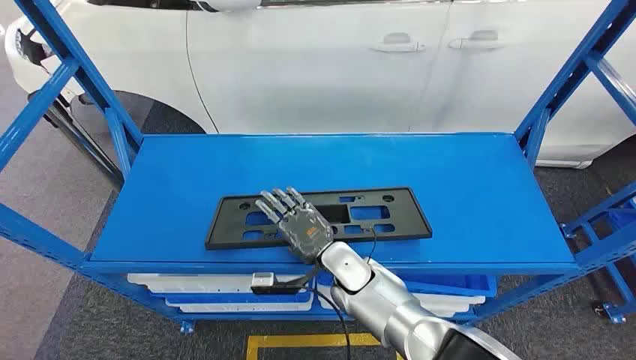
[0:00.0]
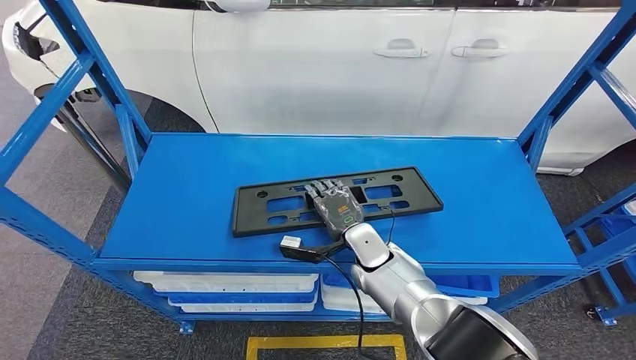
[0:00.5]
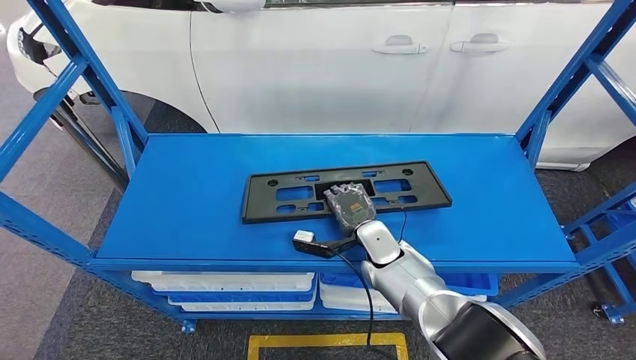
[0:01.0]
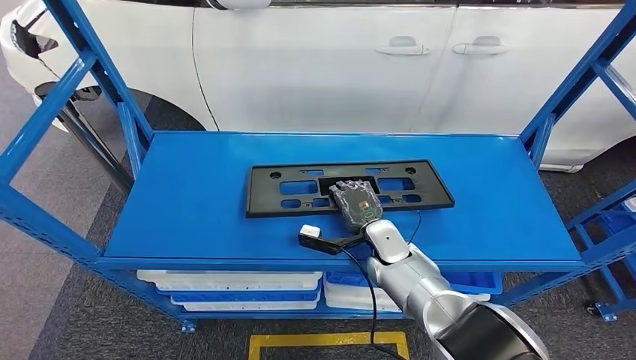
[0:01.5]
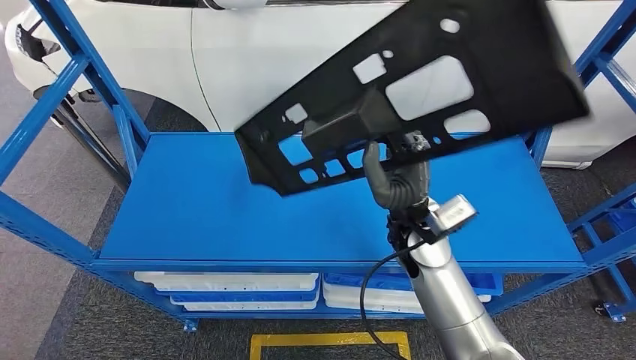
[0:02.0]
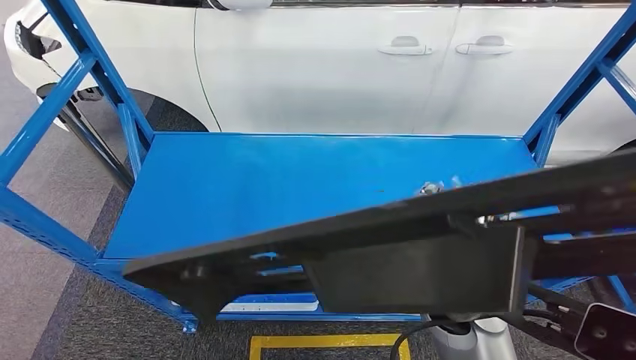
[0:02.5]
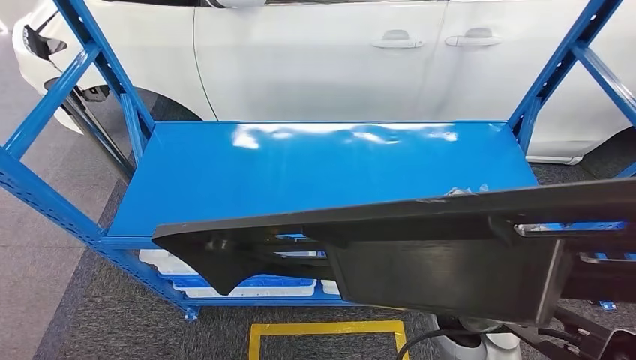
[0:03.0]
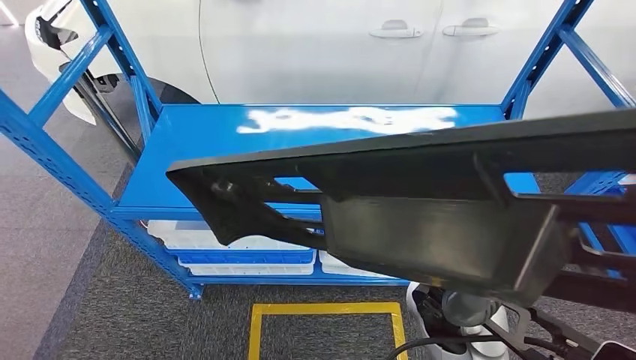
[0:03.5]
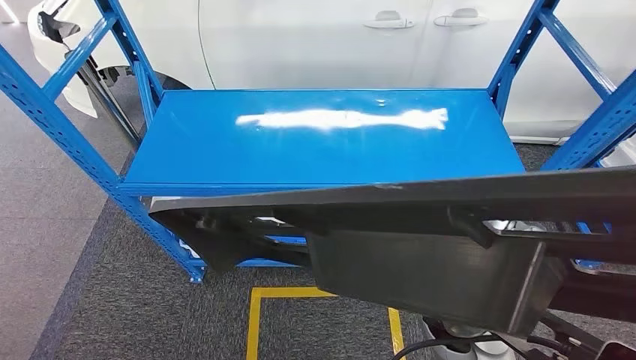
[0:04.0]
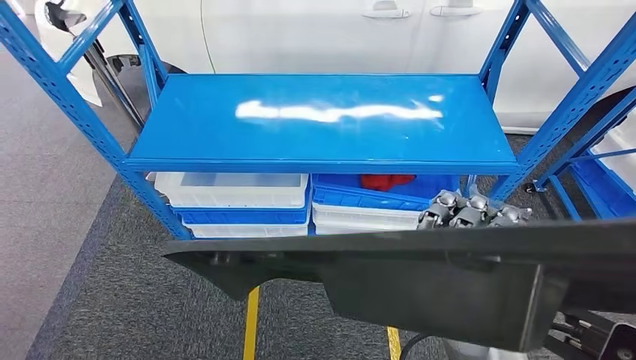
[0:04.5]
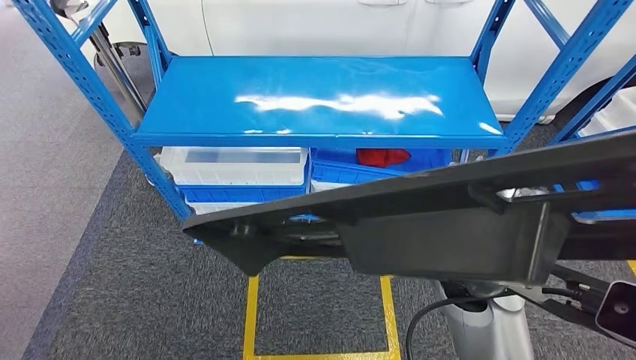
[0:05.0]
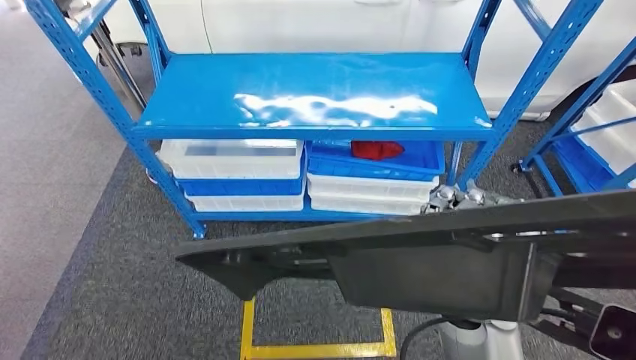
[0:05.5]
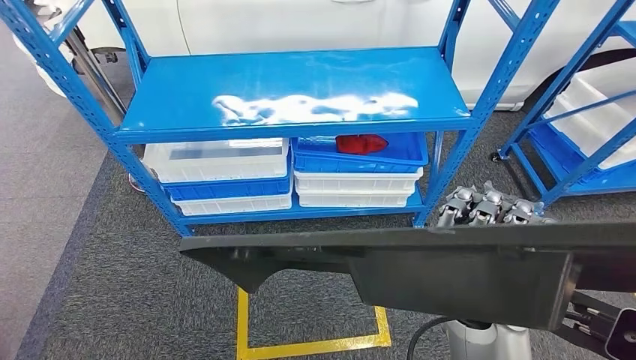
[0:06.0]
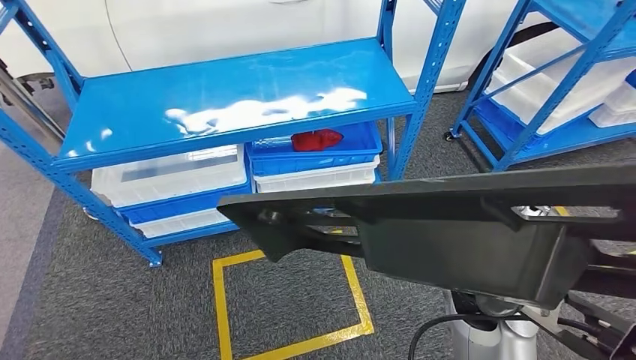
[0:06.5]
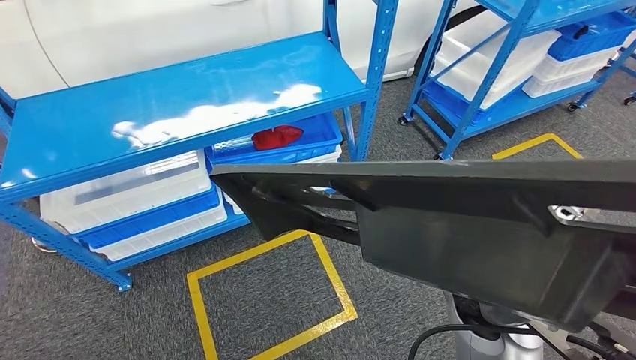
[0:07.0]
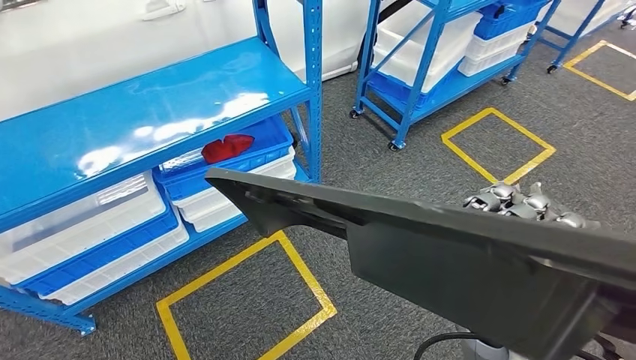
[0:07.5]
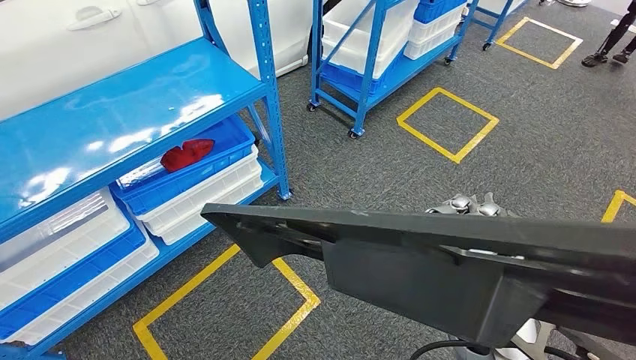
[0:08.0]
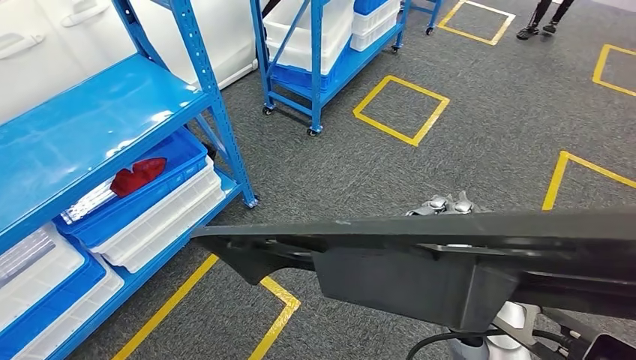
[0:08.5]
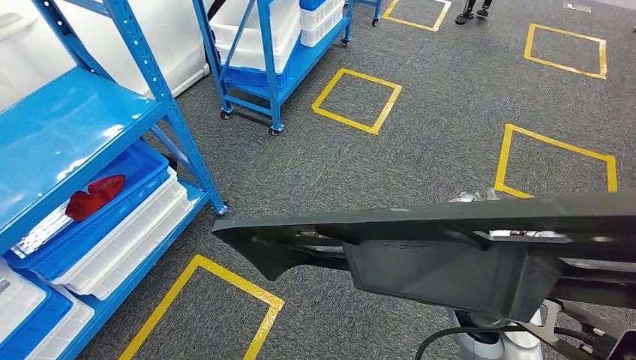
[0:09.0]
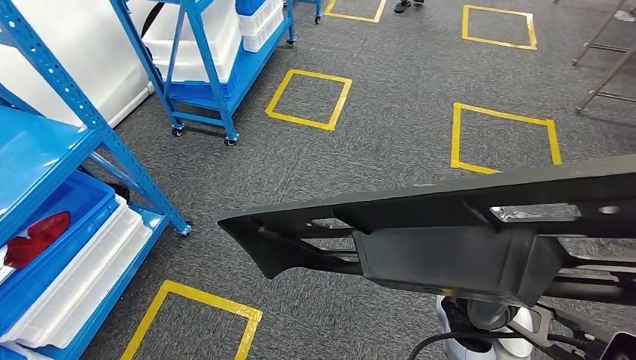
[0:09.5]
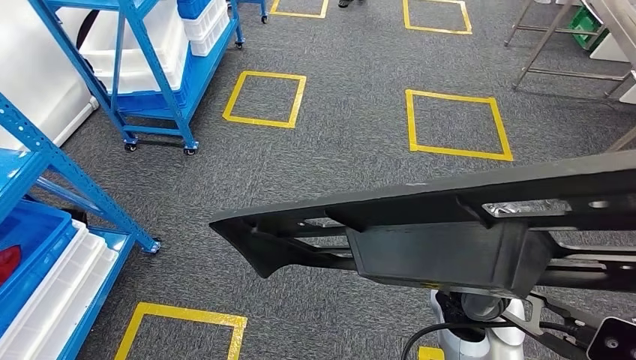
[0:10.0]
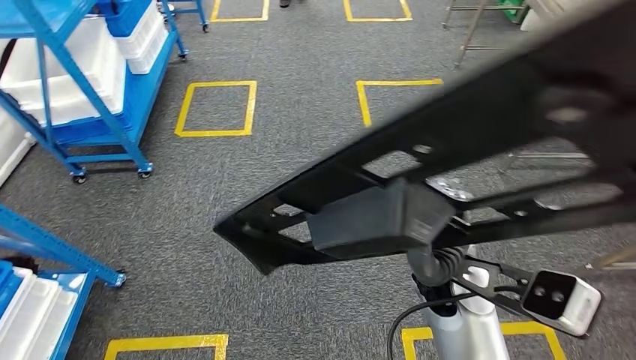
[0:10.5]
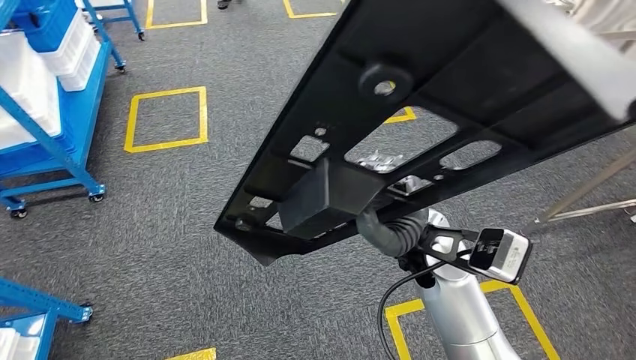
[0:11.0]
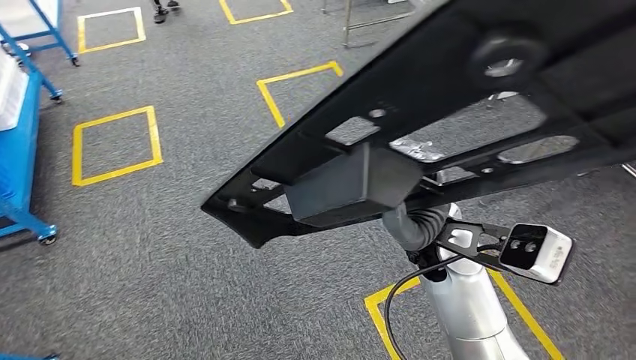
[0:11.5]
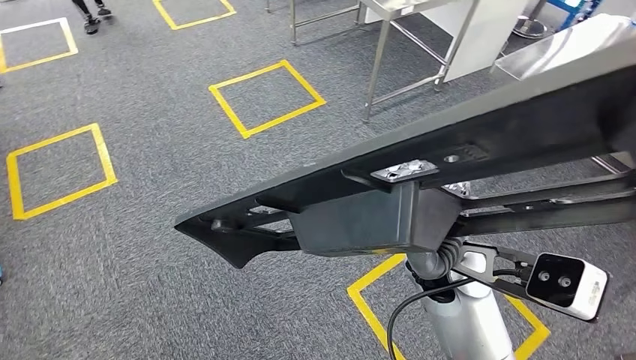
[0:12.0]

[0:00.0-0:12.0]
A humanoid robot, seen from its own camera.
Step, 0:00.0 to 0:03.0: Pick up the large material from the shelf.

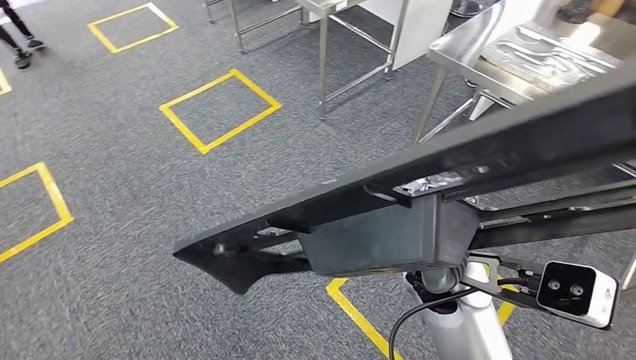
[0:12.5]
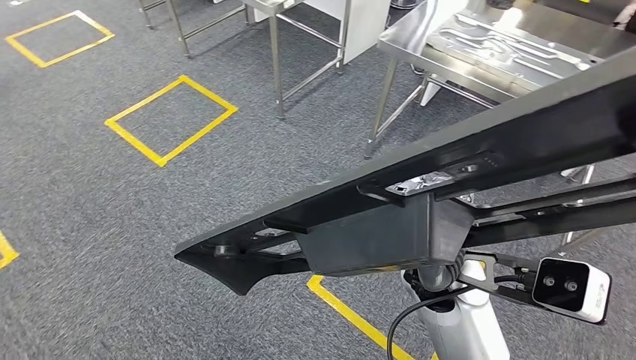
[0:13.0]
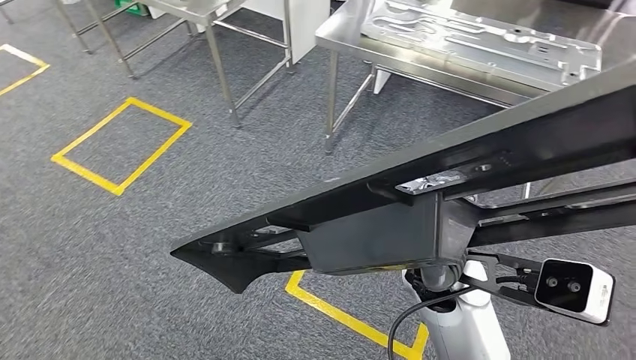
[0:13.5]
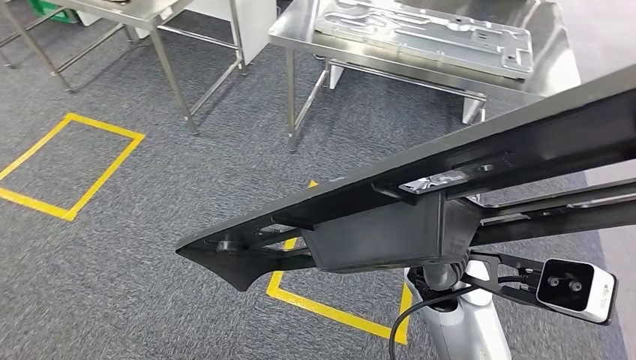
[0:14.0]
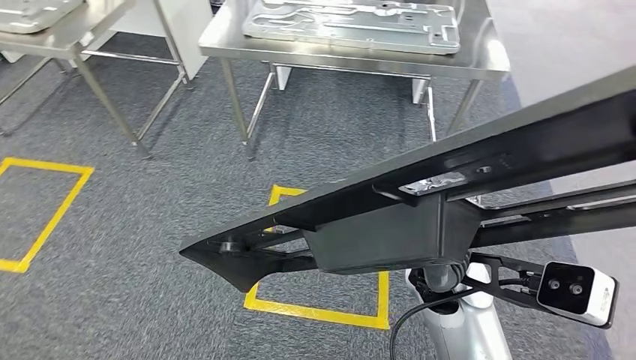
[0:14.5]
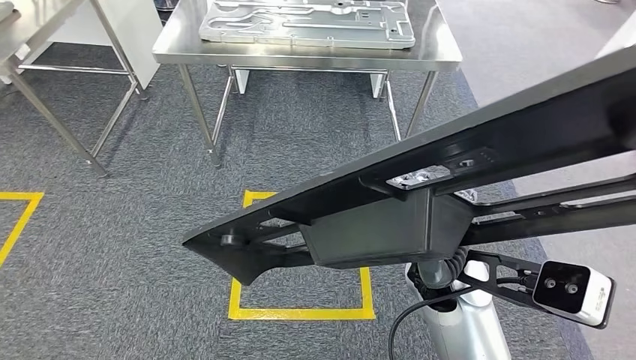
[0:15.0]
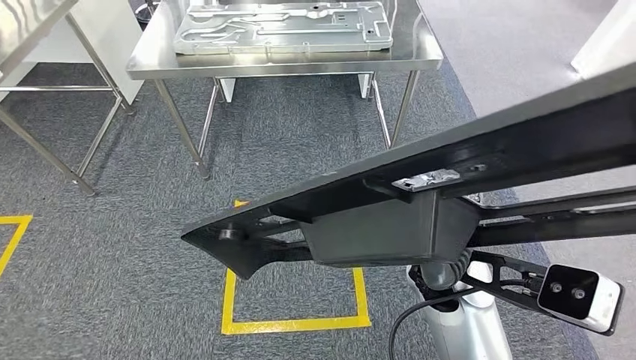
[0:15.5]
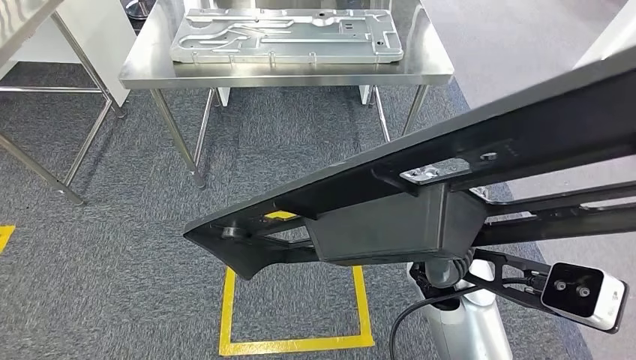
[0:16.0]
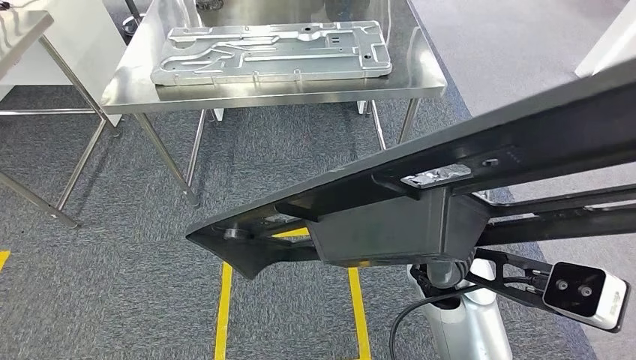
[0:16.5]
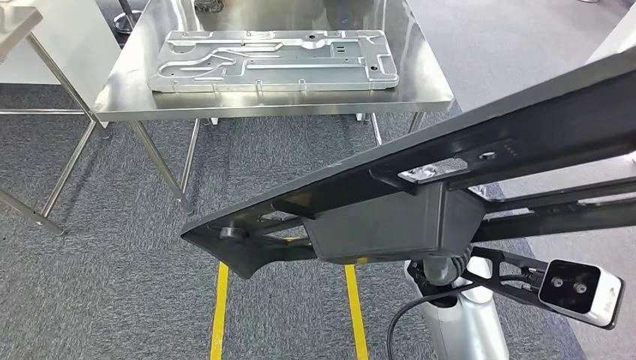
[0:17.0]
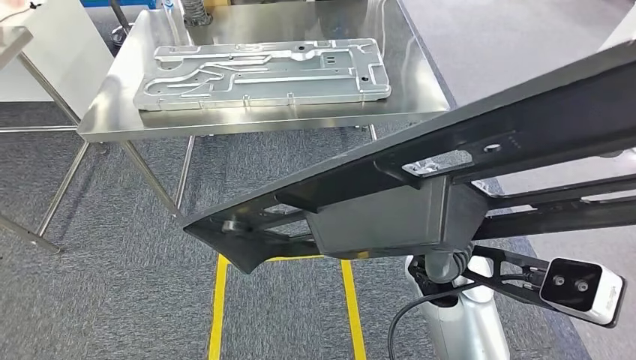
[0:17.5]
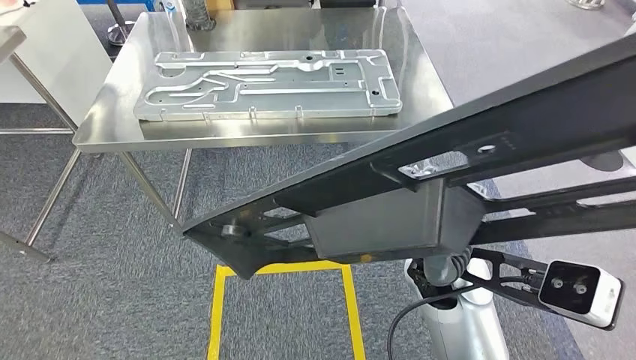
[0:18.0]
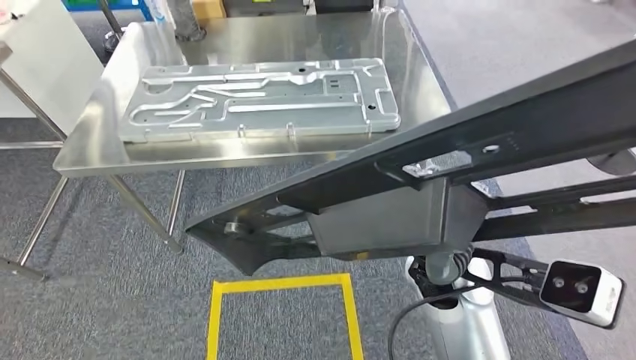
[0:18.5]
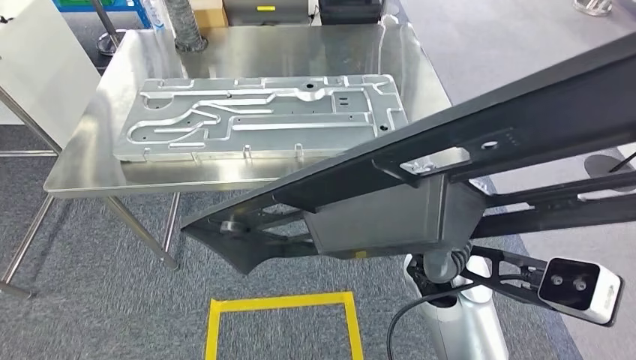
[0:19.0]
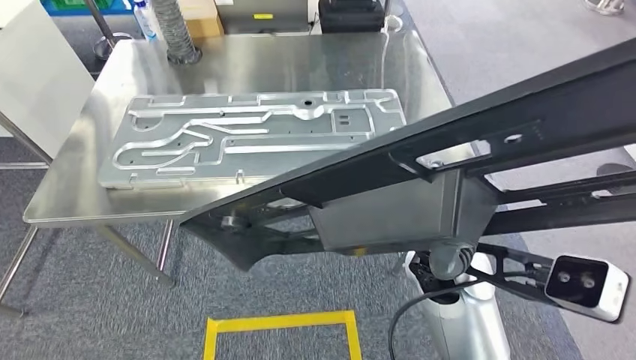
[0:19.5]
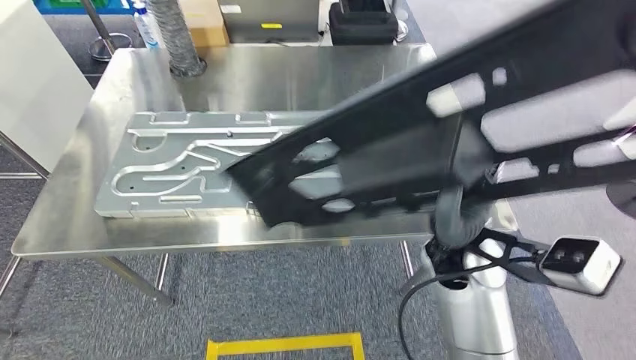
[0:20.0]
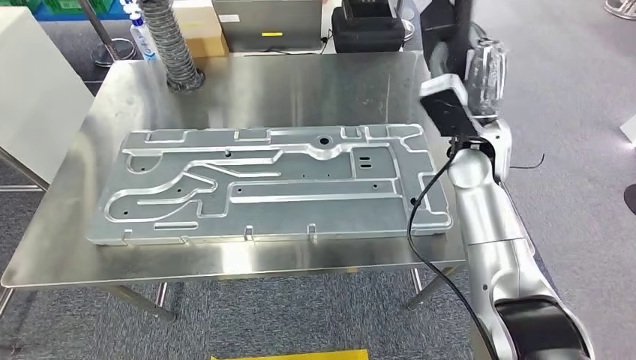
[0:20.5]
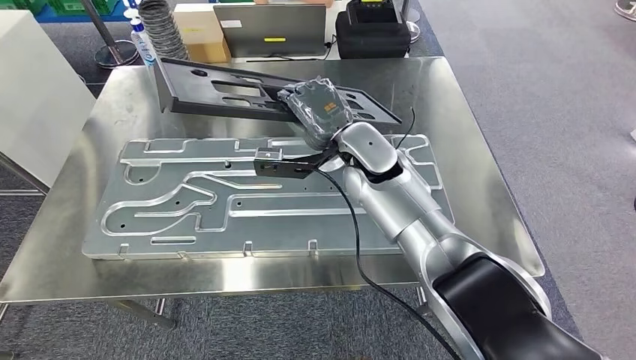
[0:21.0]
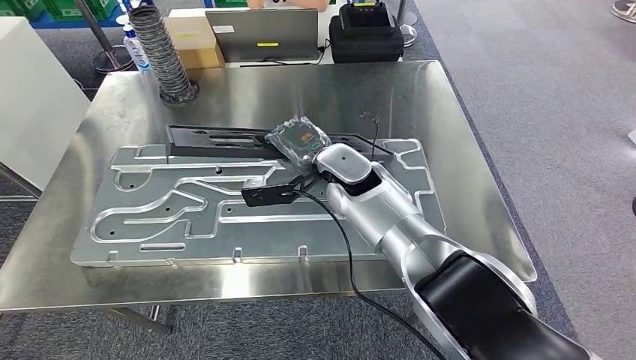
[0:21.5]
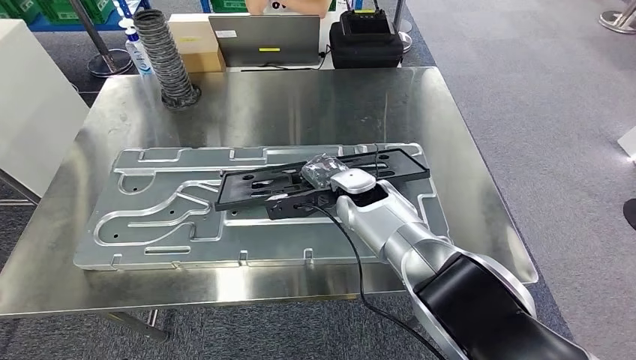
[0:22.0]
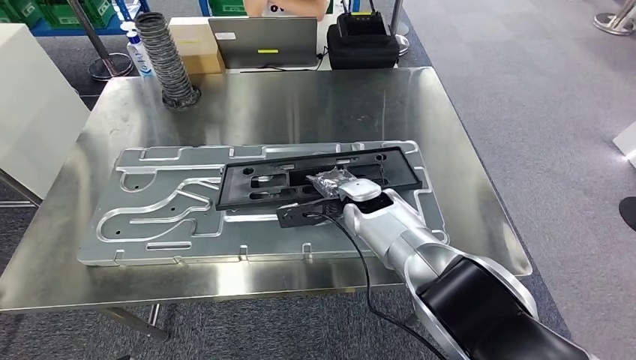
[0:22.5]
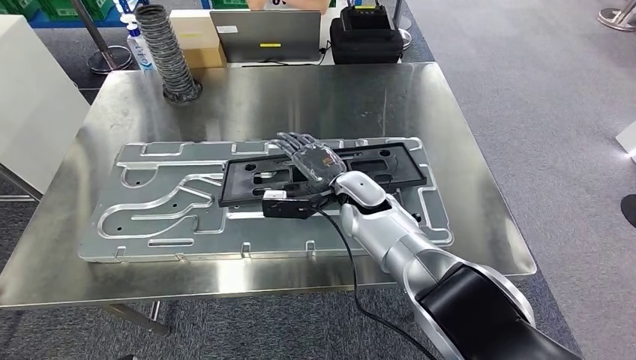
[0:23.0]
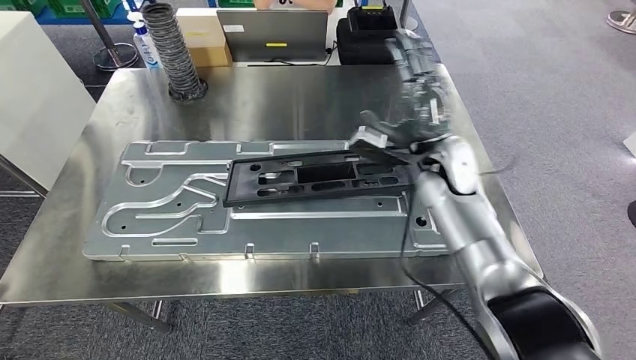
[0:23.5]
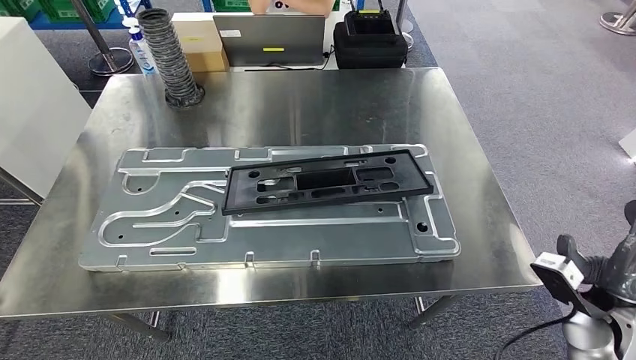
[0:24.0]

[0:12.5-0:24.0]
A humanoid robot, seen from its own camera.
Step, 0:12.5 to 0:19.0: Move the large material to the workbench.
Step, 0:20.5 to 0:22.5: Insert the large material into the corresponding slot on the workbench.
